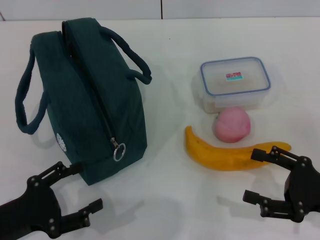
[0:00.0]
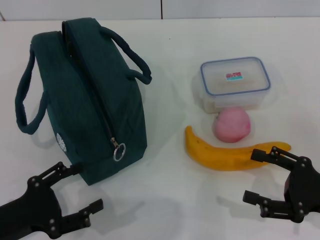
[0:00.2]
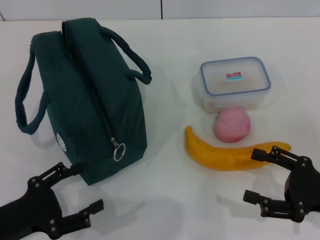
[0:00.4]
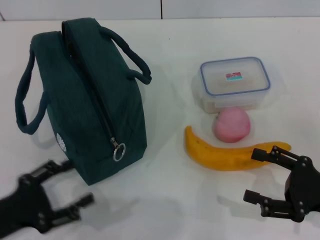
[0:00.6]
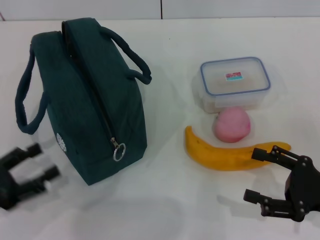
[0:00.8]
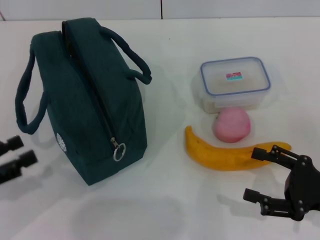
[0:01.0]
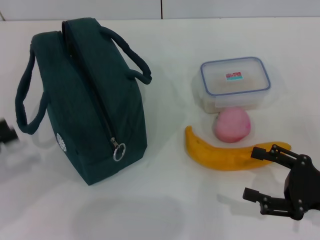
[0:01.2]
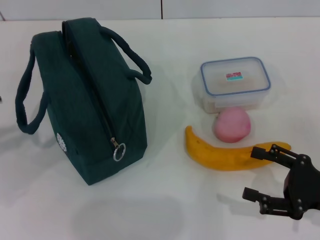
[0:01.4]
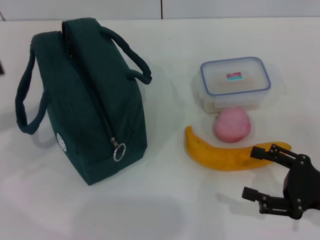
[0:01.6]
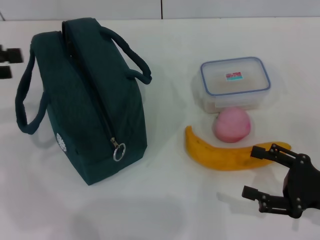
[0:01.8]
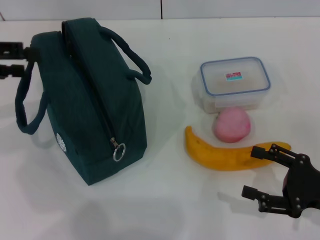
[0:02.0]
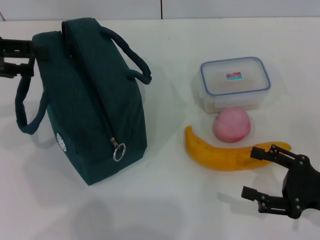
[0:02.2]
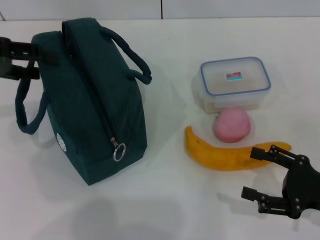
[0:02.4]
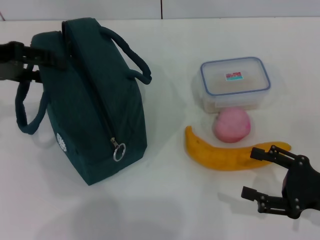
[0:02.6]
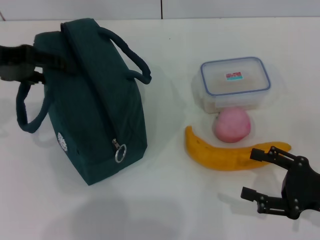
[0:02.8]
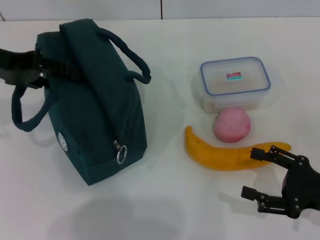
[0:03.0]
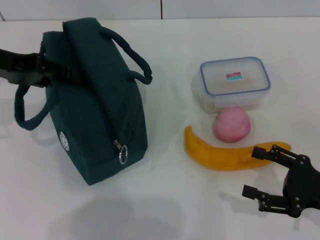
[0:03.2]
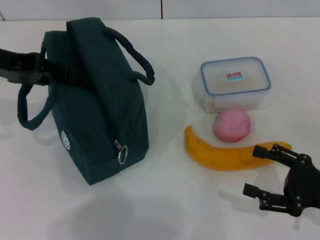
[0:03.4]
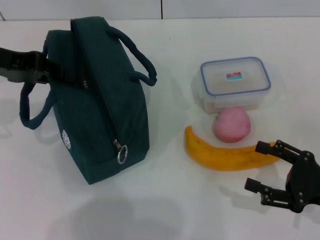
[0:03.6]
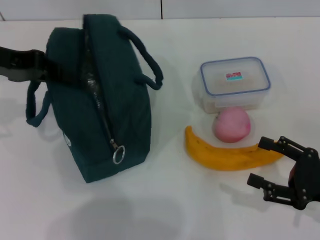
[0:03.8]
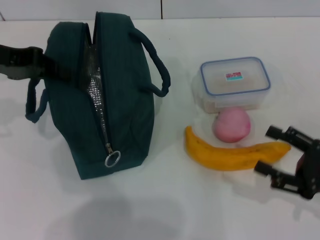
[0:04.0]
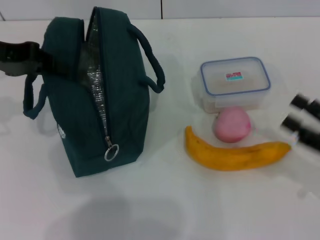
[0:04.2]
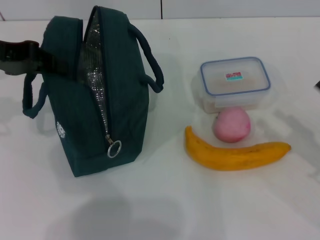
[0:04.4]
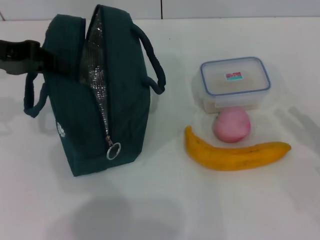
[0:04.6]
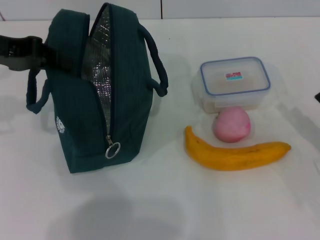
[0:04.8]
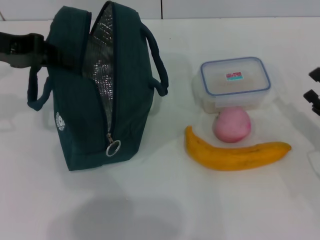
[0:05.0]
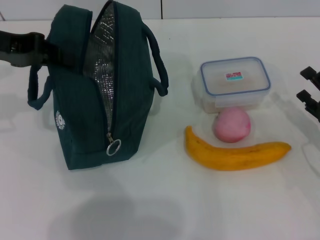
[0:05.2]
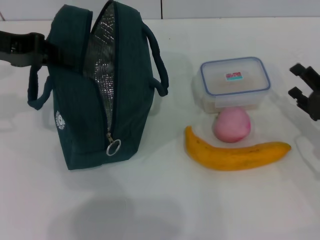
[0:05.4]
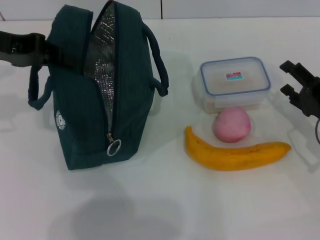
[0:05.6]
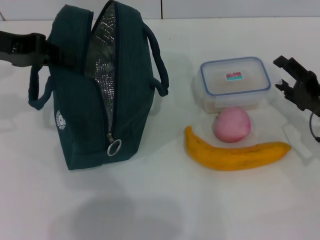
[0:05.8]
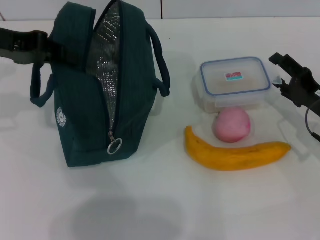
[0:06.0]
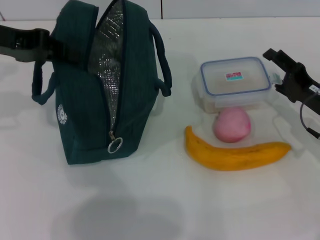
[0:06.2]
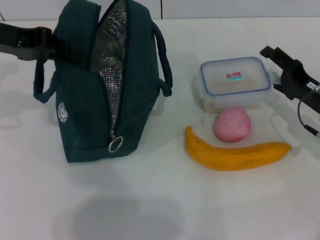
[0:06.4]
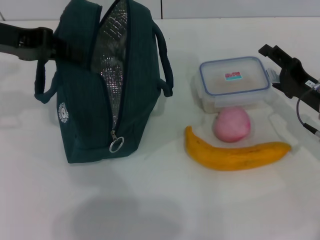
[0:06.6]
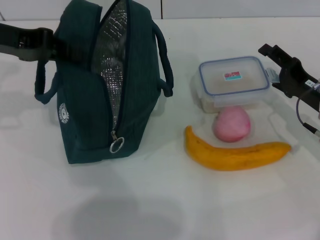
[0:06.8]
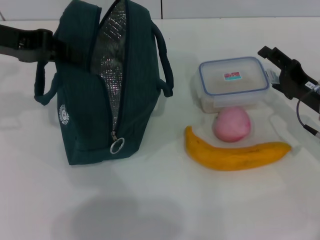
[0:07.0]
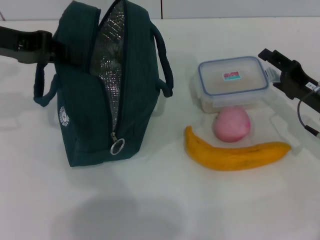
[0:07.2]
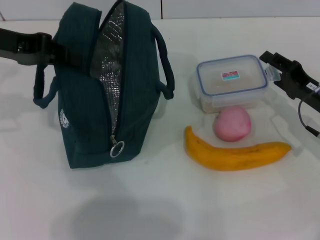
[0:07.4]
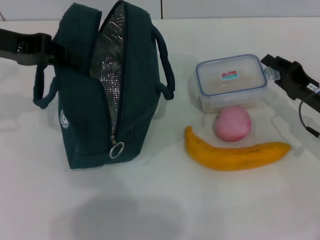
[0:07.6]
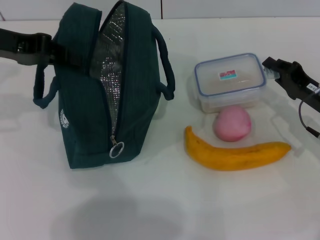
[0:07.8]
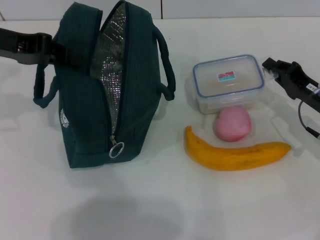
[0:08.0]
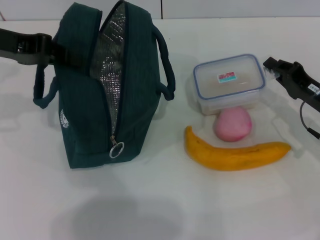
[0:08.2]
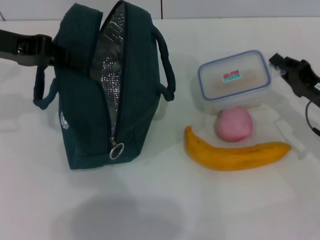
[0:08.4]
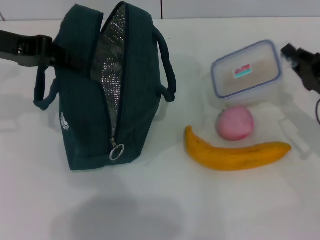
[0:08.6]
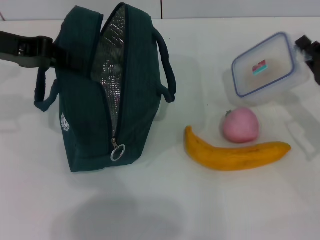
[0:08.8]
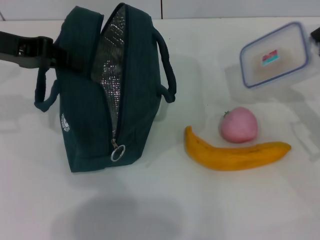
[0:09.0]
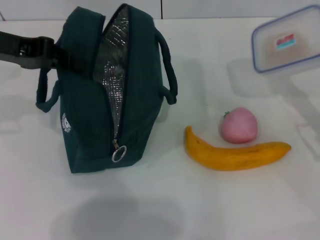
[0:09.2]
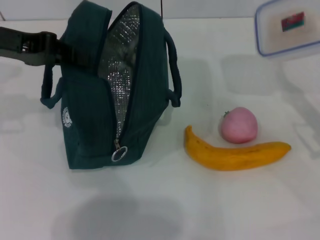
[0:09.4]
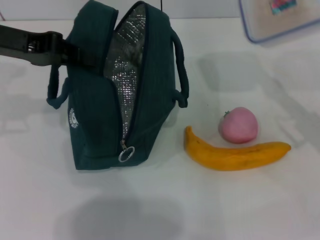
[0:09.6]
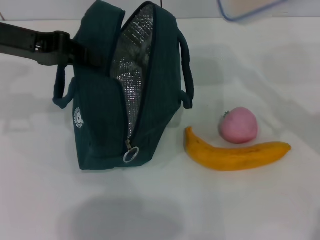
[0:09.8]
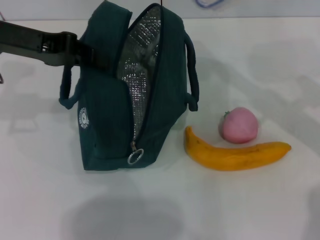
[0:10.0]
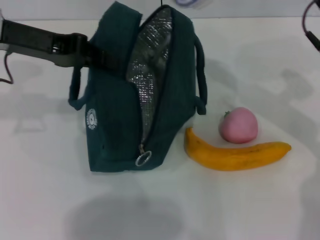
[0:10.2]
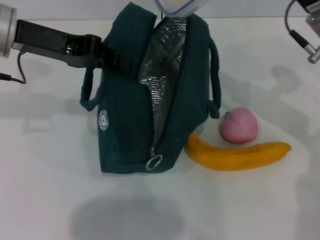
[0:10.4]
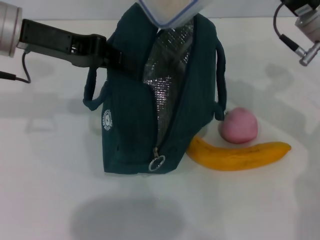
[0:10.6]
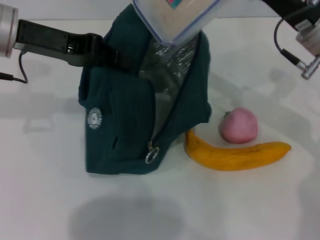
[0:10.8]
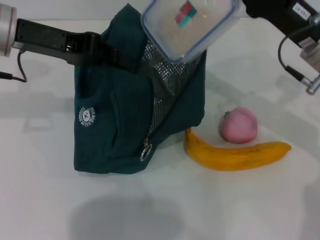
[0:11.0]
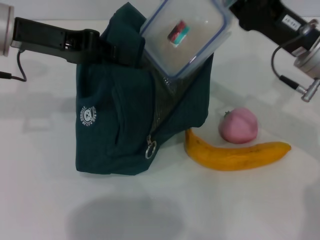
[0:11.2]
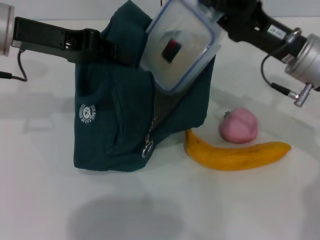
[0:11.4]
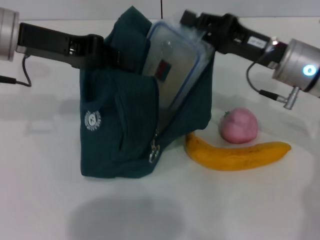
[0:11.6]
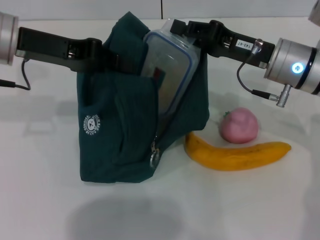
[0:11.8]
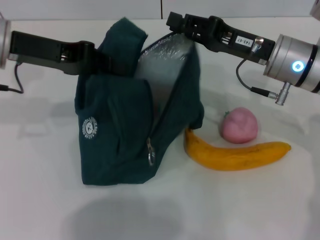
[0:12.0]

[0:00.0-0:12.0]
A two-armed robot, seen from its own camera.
Step, 0:00.0 to 0:03.4: Hold the lunch bag with your left hand.
Step, 0:03.6 to 0:07.8: Pick up the lunch box with your right hand.
0:00.0 to 0:01.6: The left gripper heads upward, forward and to the left, covering roughly 20 cm.
0:01.6 to 0:03.0: The left gripper is displaced to the right and forward by approximately 15 cm.
0:03.0 to 0:04.4: The left gripper closes its fingers.
0:04.4 to 0:06.0: The right gripper heads forward, covering about 10 cm.
0:06.0 to 0:07.6: The right gripper closes up.
0:07.6 to 0:09.0: The right gripper changes place by some 5 cm, and closes up.
0:09.0 to 0:10.4: The left gripper moves to the right, some 5 cm; the right gripper is displaced upward, to the left and forward by approximately 15 cm.
0:10.4 to 0:12.0: The right gripper moves approximately 5 cm.

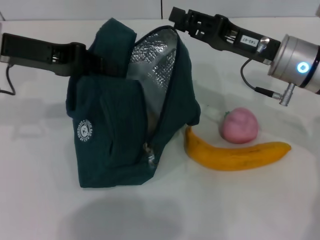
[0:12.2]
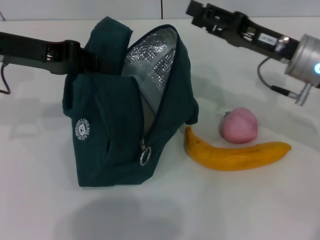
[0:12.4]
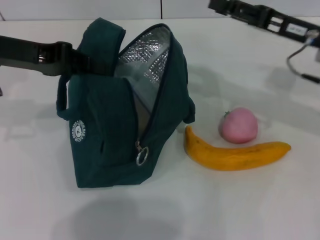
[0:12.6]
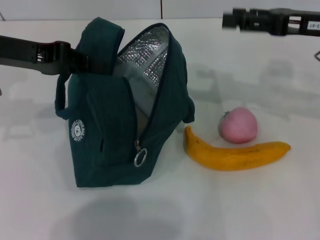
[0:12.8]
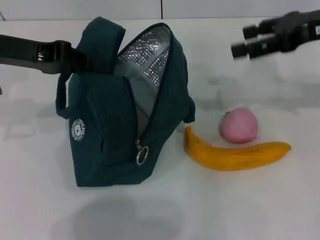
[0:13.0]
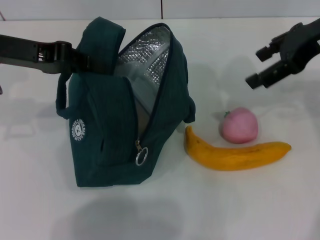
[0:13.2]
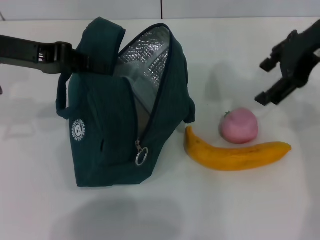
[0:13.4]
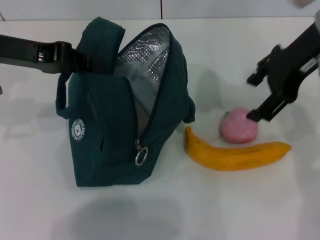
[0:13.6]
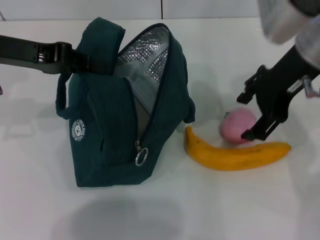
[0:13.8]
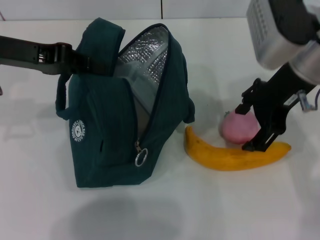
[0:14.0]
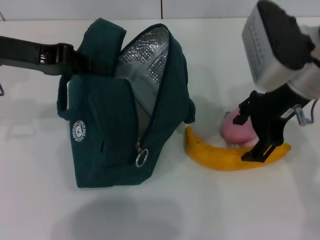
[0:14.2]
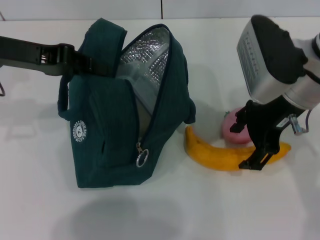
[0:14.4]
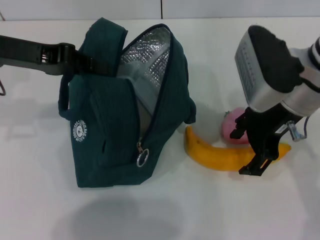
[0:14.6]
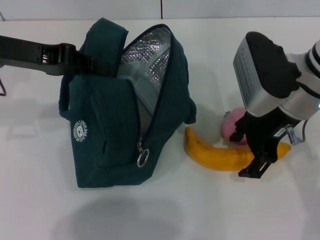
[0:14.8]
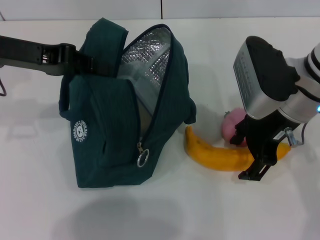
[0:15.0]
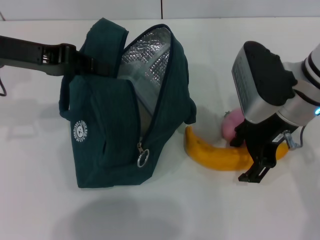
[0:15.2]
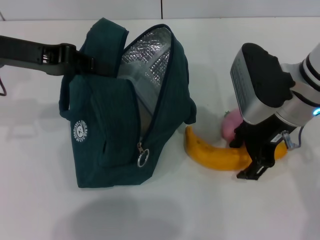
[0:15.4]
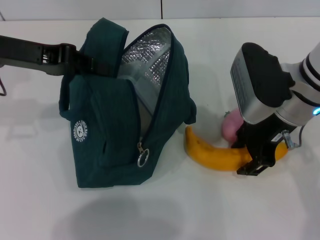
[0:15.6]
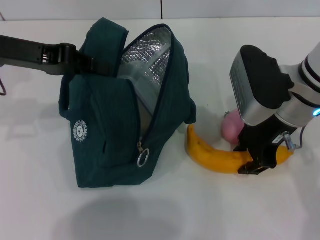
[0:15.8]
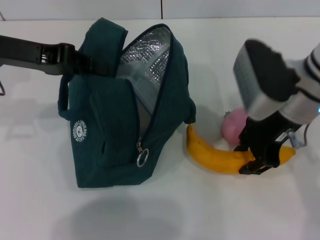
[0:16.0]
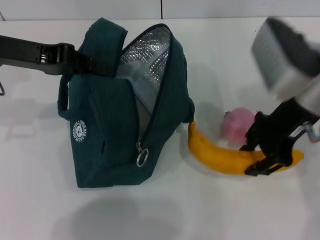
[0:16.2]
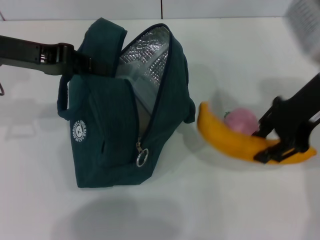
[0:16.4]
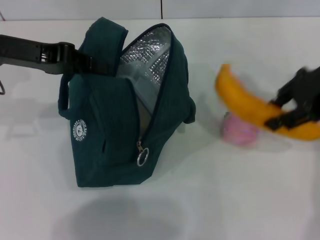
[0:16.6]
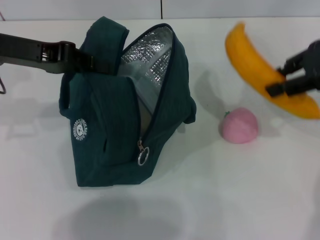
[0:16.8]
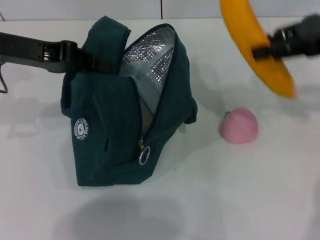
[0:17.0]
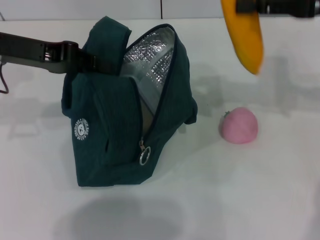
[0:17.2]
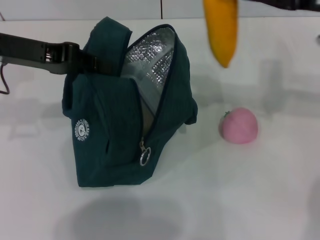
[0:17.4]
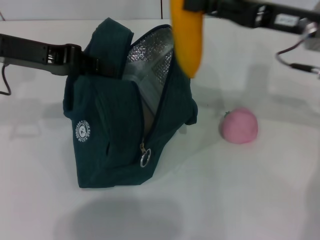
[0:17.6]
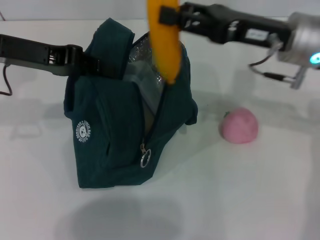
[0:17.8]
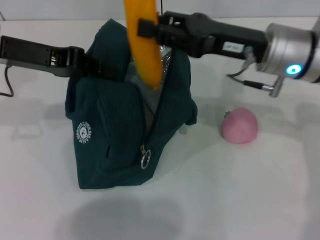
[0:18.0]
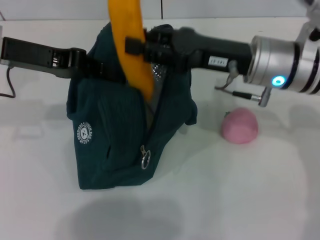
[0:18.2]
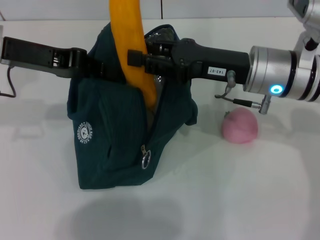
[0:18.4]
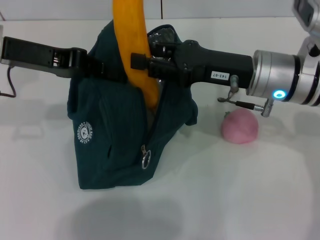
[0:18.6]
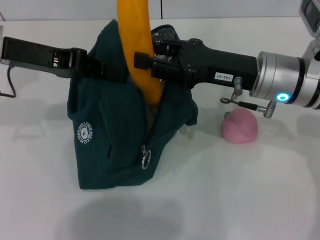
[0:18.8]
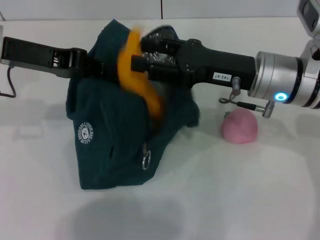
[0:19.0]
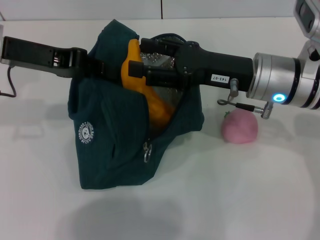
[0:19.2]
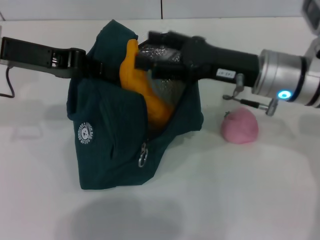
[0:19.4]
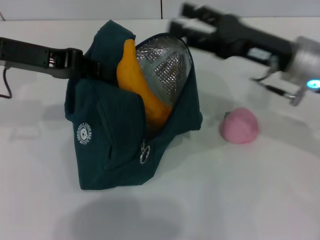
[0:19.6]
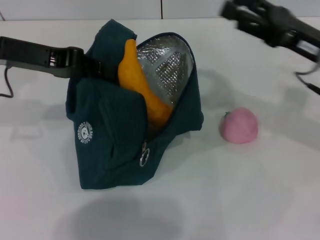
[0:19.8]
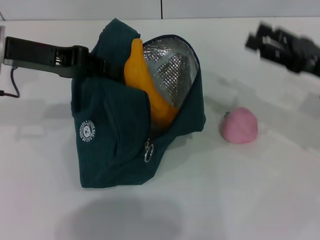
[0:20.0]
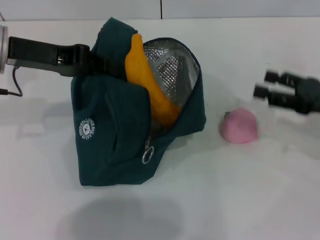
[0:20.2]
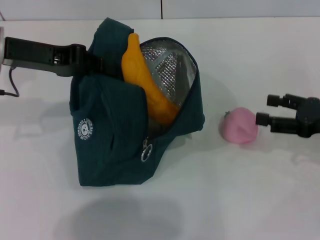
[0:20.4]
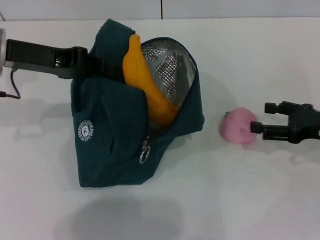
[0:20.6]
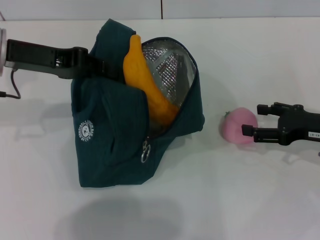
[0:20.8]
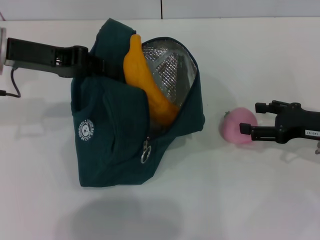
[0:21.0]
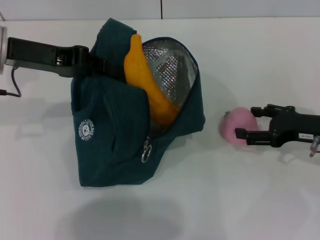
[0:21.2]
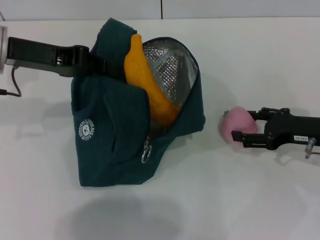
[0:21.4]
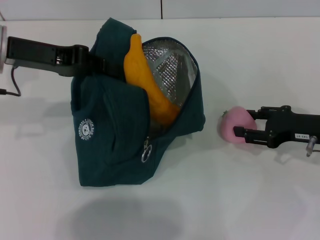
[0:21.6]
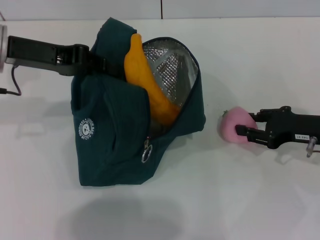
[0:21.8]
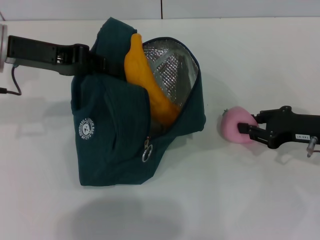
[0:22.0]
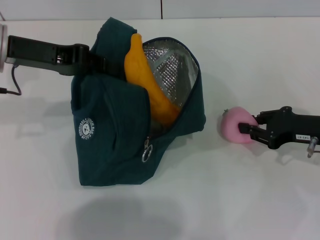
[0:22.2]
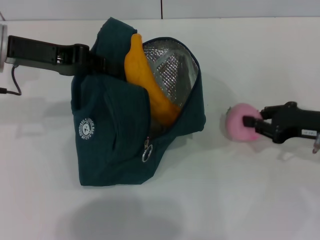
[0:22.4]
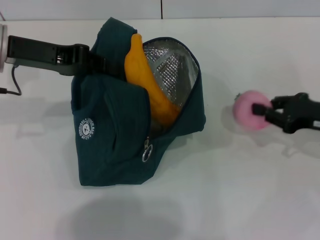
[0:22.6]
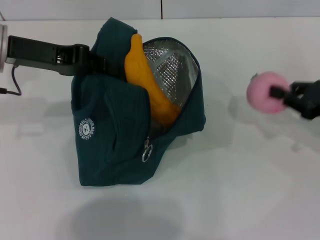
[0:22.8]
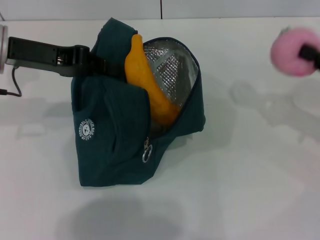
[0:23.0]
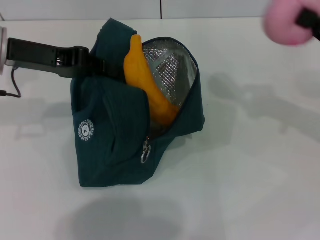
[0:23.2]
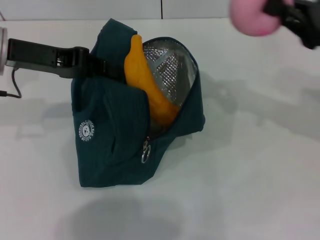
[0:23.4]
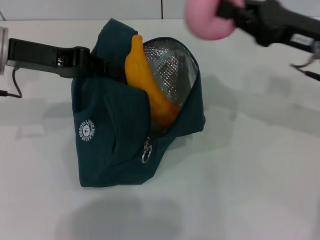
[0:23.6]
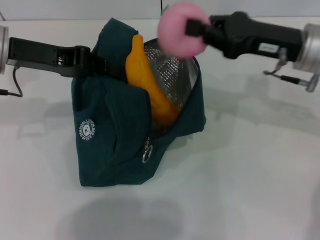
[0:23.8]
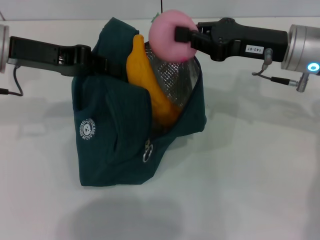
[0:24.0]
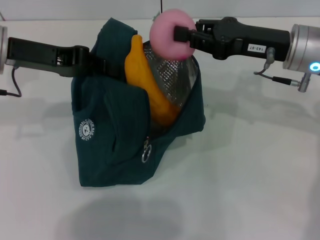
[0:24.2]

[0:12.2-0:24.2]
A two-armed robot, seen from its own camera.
Step, 0:12.4 to 0:15.6: Take the banana with your right hand.
Step, 0:16.0 to 0:19.2: Put the banana into the lunch bag with your right hand.
Step, 0:19.4 to 0:21.8: Grab the peach with your right hand.
0:12.2 to 0:13.8: The right gripper is displaced upward by roughly 10 cm, and opens its fingers.
0:13.8 to 0:15.2: The right gripper travels downward by approximately 10 cm.
0:15.2 to 0:16.6: The right gripper shifts some 10 cm to the right and upward, and closes its fingers.
0:16.6 to 0:18.2: The right gripper goes about 15 cm to the left and downward.
0:18.2 to 0:19.8: The right gripper moves to the right, some 10 cm, and opens.
0:19.8 to 0:21.2: The right gripper travels downward by approximately 10 cm.
0:21.2 to 0:22.6: The right gripper closes up.
0:22.6 to 0:24.2: The right gripper shifts some 15 cm to the left, upward and forward.
